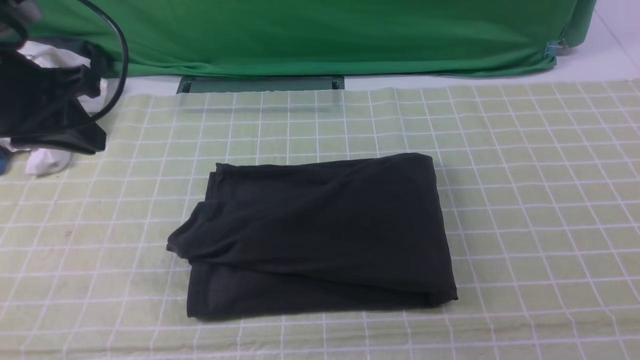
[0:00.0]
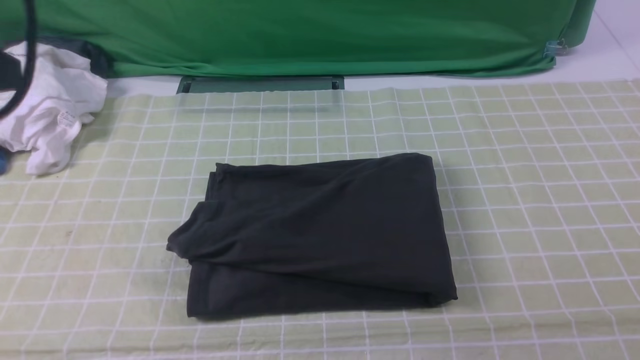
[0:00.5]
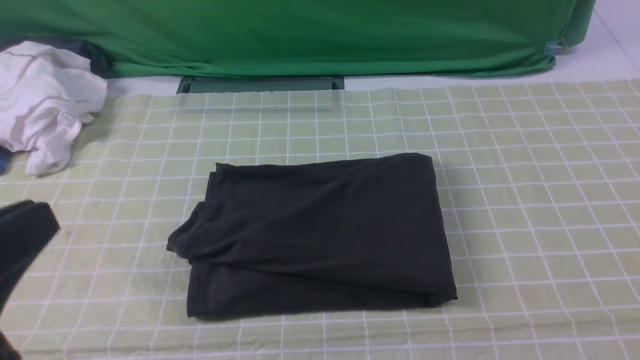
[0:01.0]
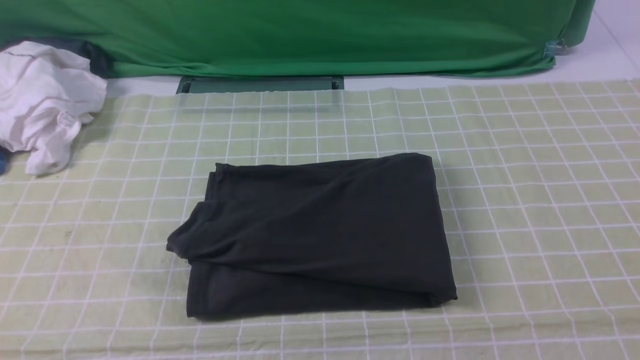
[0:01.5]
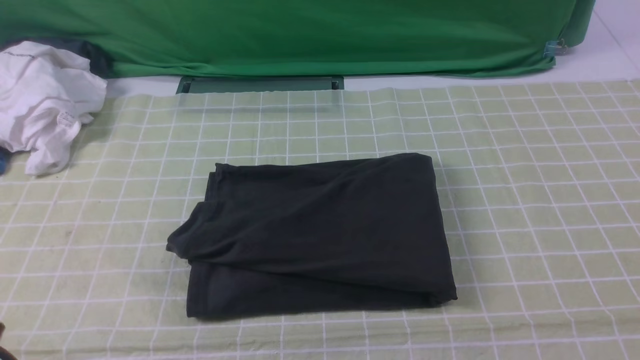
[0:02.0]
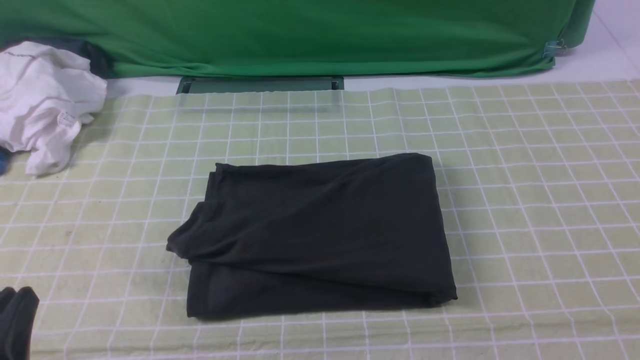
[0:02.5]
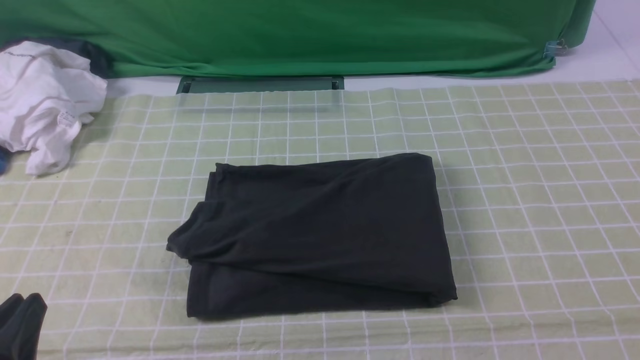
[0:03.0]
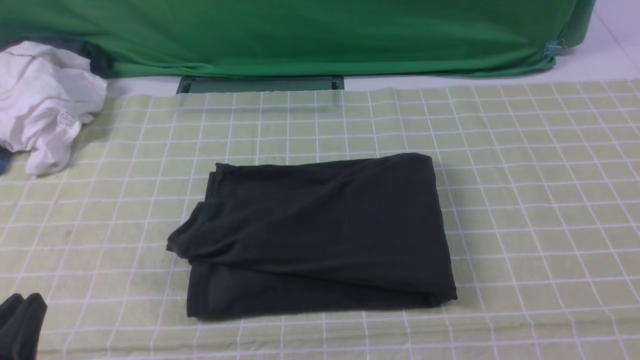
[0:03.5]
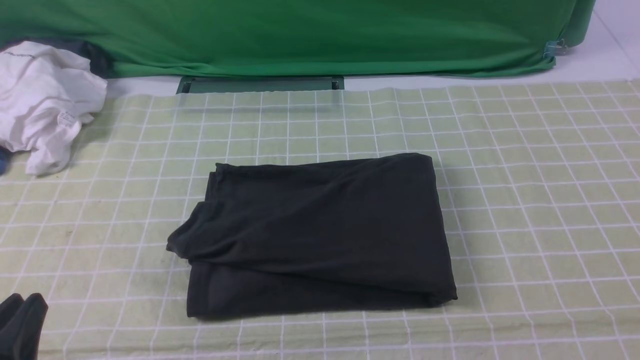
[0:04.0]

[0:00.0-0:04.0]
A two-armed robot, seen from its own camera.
0:00.0 to 0:02.0: The left gripper is displaced backward by approximately 25 cm.
0:02.0 to 0:04.0: The left gripper goes about 10 cm downward.
